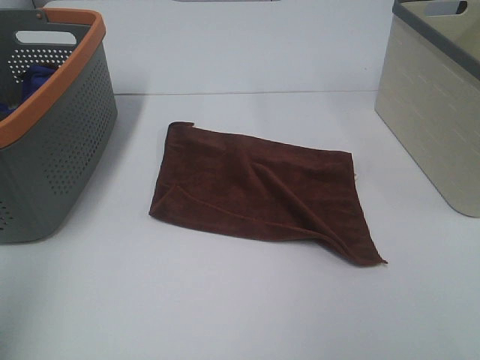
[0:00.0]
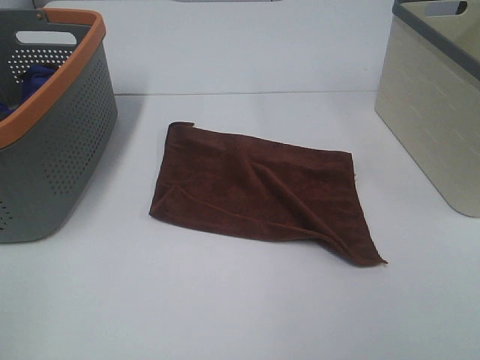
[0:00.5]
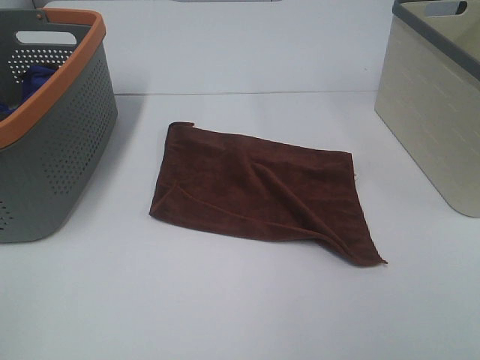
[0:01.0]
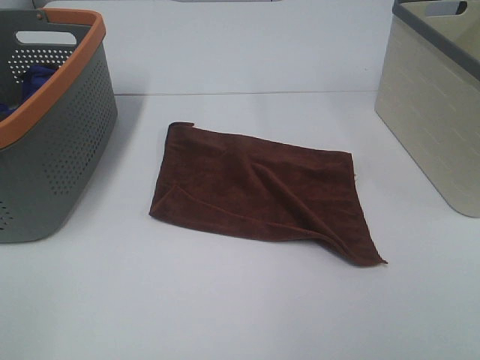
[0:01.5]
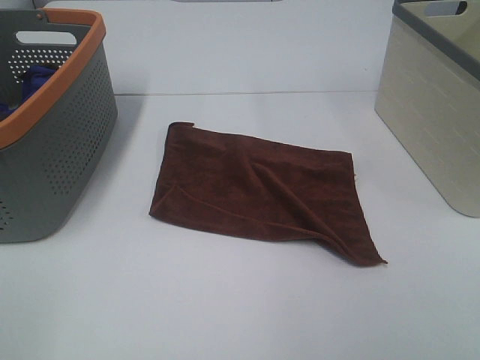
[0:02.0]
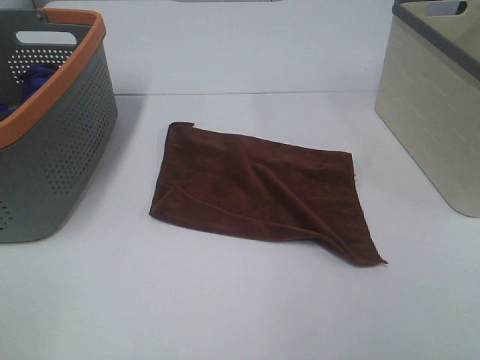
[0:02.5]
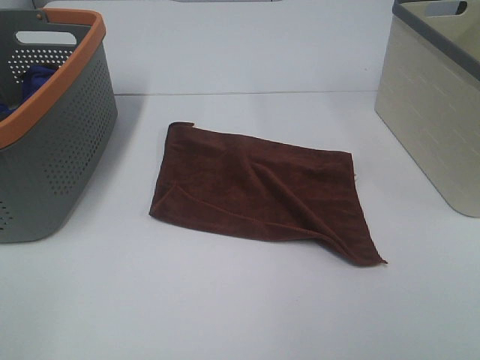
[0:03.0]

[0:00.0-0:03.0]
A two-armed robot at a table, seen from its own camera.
Task of the whole recording: Remove the towel and place it.
0:00.0 to 0:01.5: The left gripper moves downward and backward, about 15 cm.
0:01.5 to 0:03.0: Neither gripper changes place.

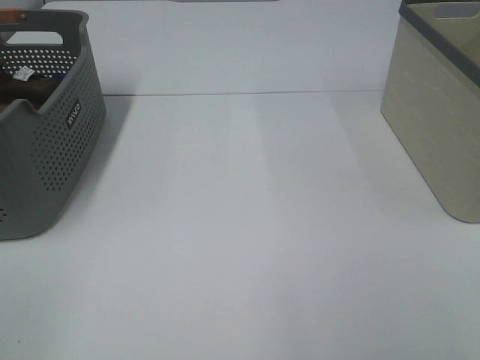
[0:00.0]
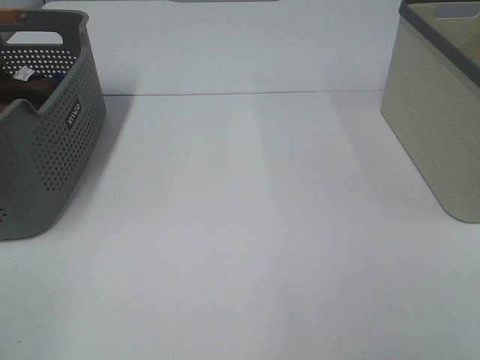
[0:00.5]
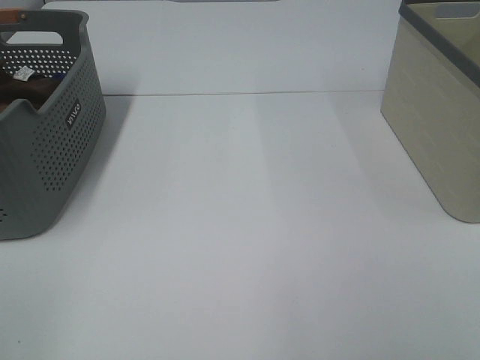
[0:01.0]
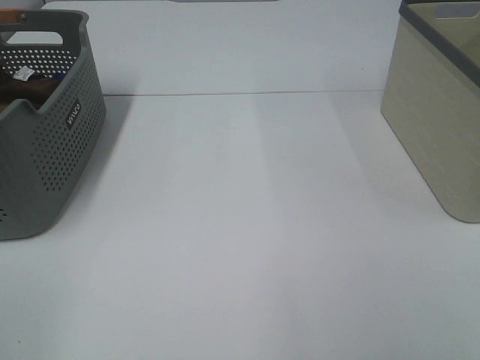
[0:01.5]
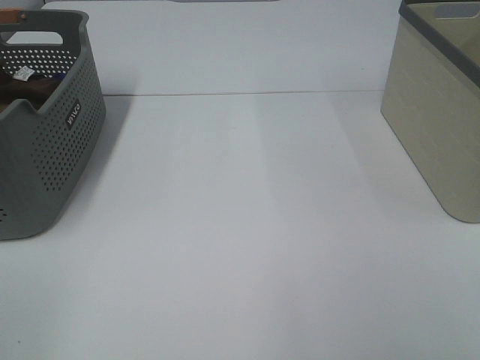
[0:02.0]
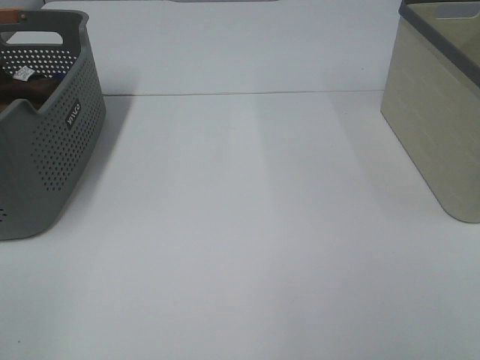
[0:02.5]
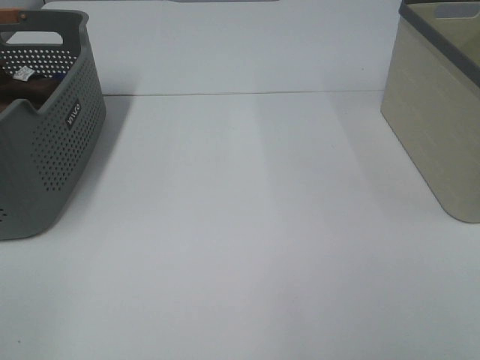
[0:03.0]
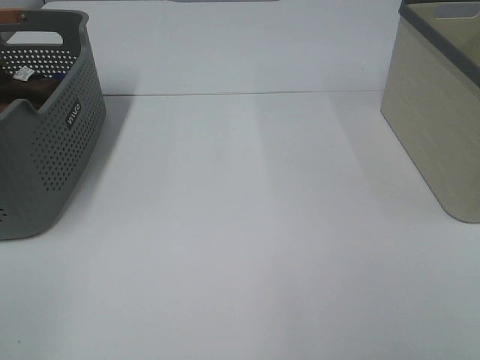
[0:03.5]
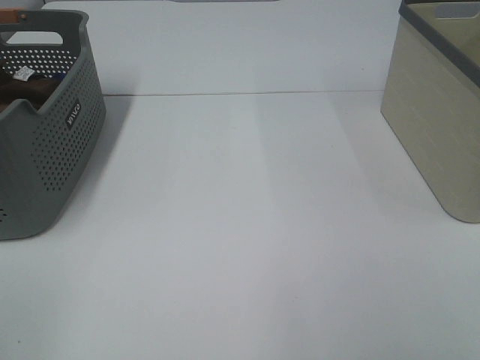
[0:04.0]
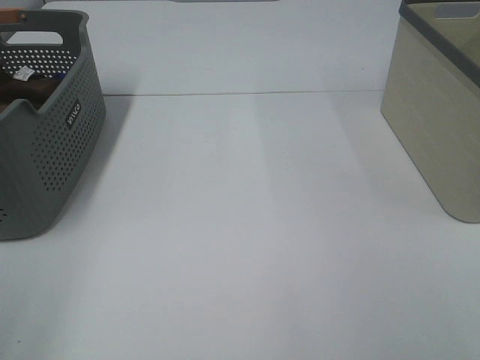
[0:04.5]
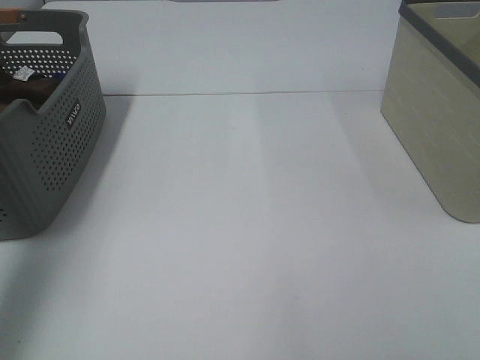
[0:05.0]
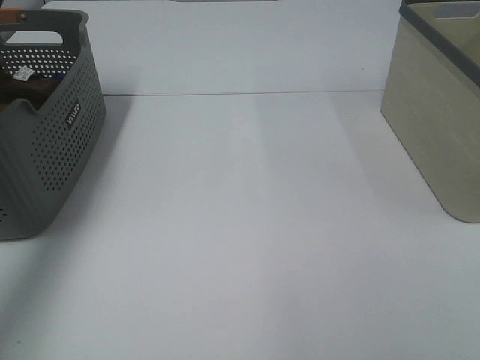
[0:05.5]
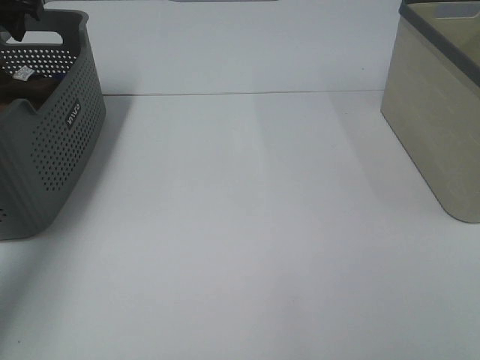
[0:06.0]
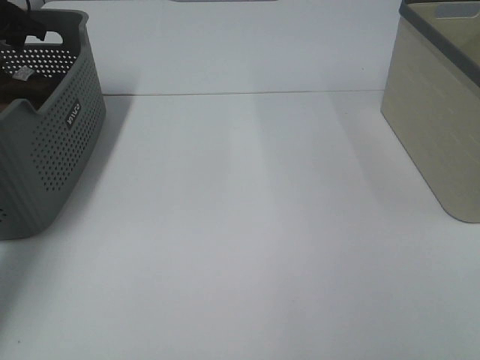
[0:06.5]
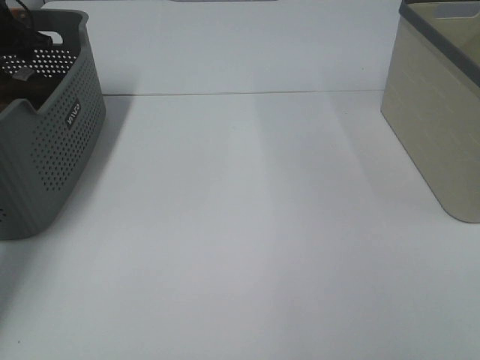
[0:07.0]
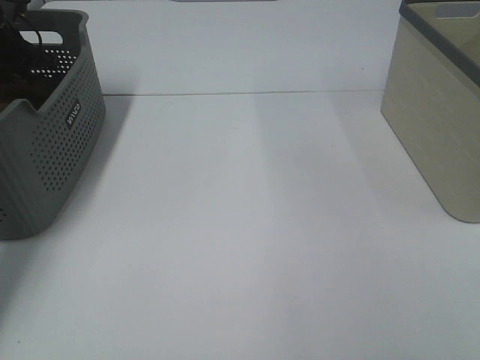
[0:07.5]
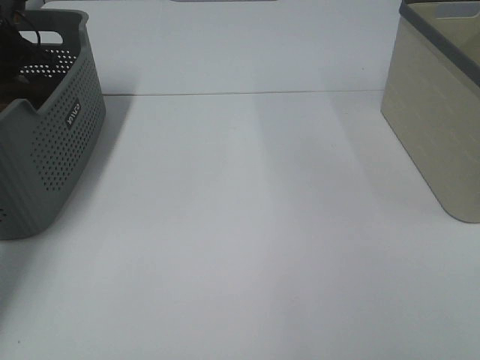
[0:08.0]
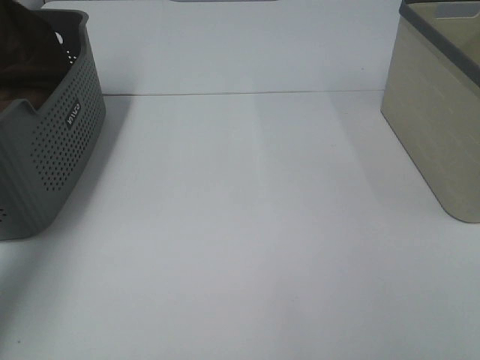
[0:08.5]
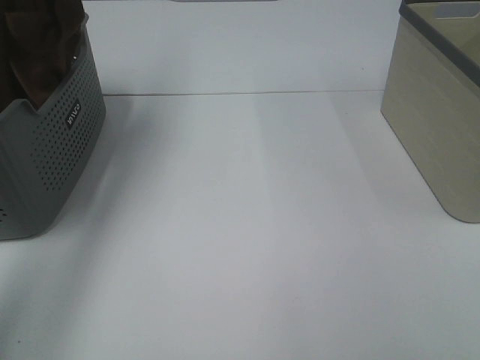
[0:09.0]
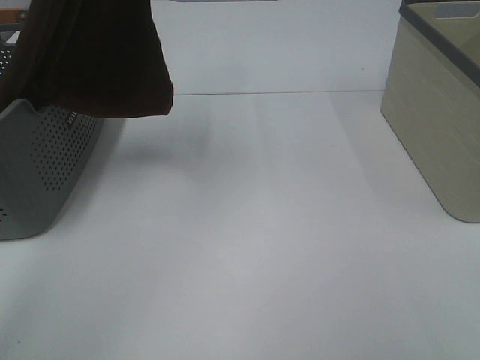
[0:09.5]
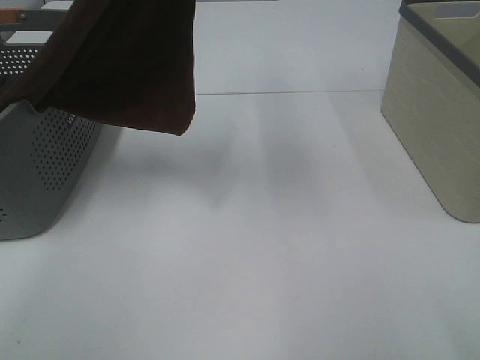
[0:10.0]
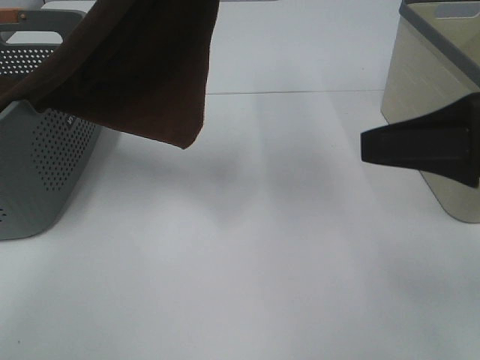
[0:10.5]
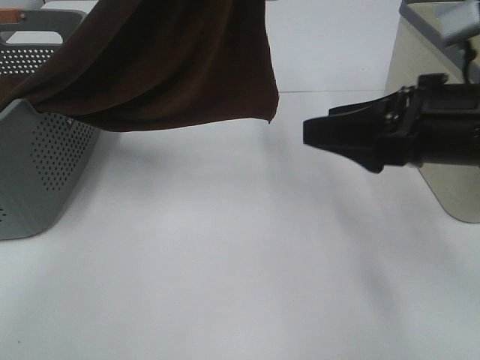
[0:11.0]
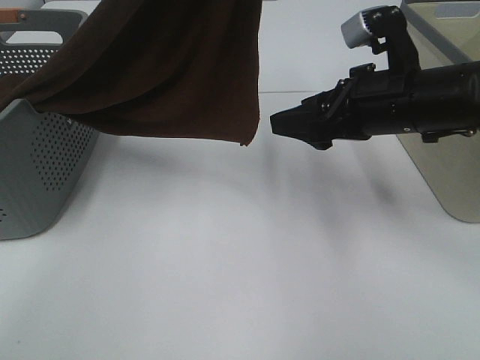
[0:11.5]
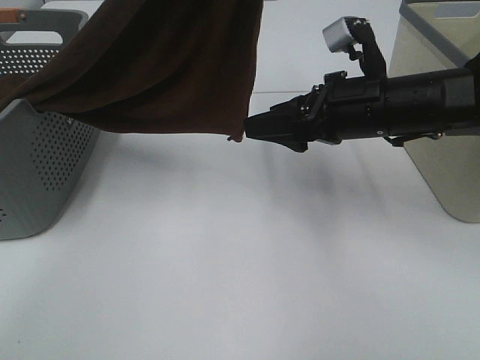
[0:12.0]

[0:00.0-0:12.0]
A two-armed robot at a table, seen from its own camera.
Task of the whole recording: Remove the towel and place it.
0:00.0 to 0:04.0: Both grippers stay about where they are.
0:04.0 to 0:06.0: The left gripper goes approximately 50 cm forward.
0:06.0 to 0:08.0: The left gripper goes roughly 10 cm downward and forward, and closes up.
0:08.0 to 0:10.0: The left gripper goes about 50 cm to the right, upward and backward. The right gripper moves forward, approximately 5 cm.
0:10.0 to 0:12.0: The right gripper moves forward, to the left and downward, roughly 30 cm.

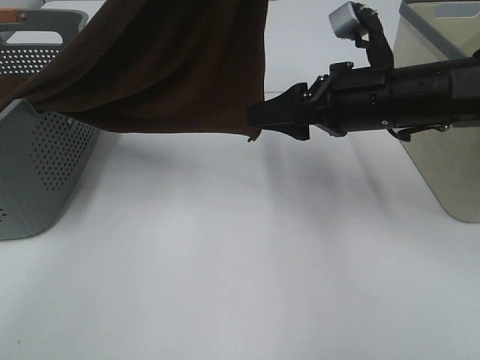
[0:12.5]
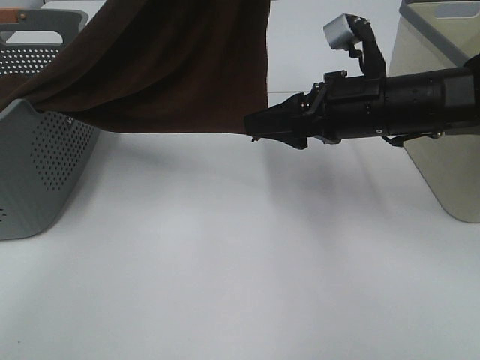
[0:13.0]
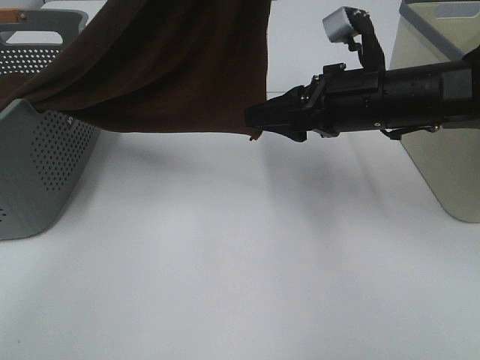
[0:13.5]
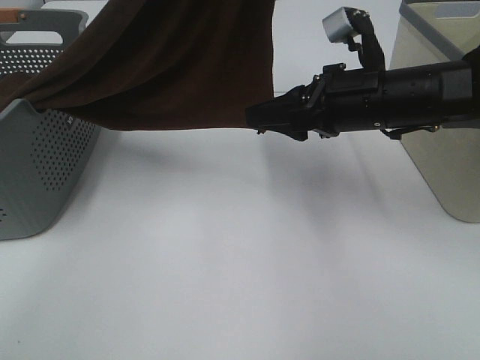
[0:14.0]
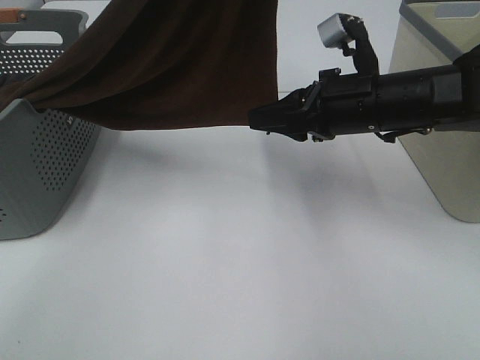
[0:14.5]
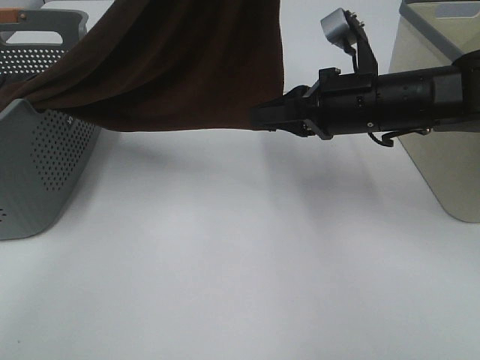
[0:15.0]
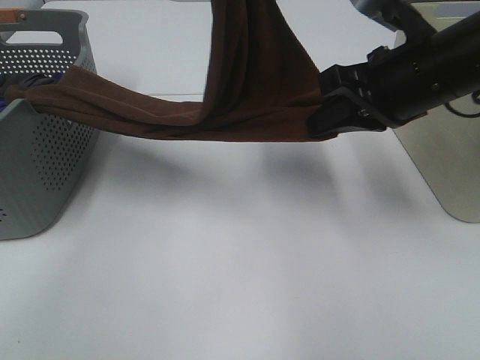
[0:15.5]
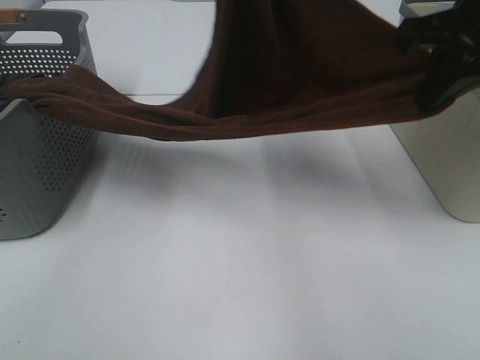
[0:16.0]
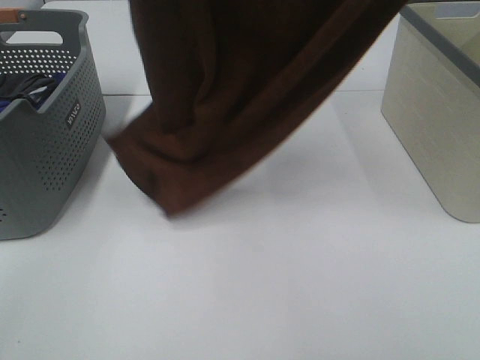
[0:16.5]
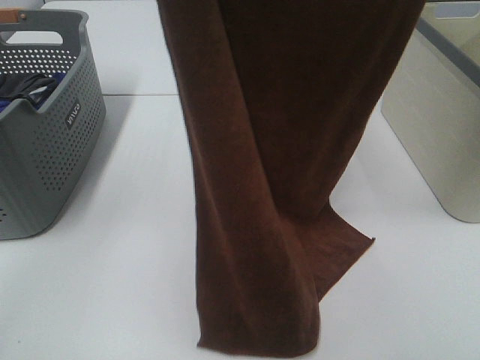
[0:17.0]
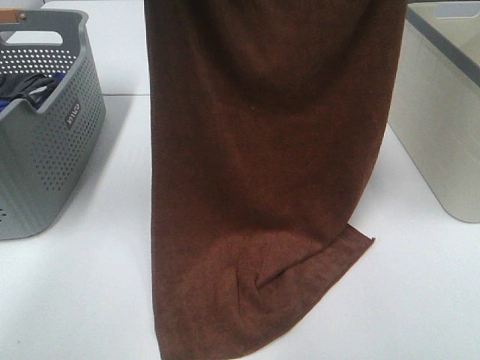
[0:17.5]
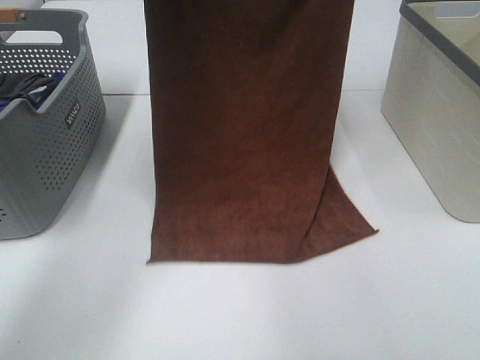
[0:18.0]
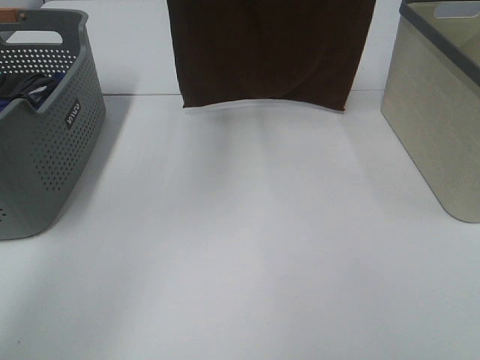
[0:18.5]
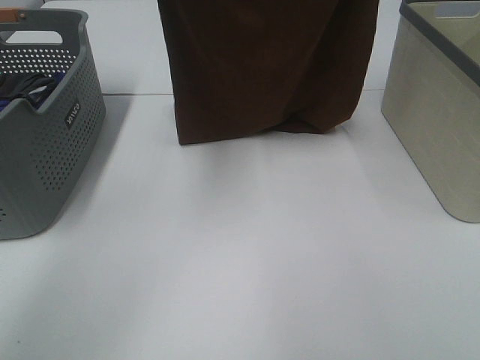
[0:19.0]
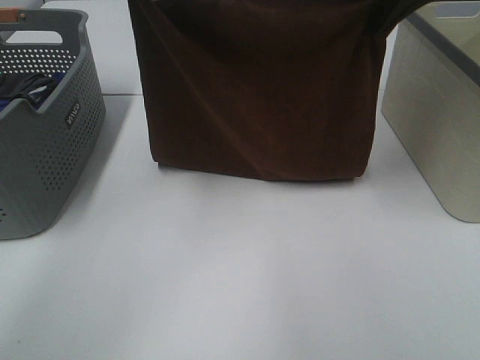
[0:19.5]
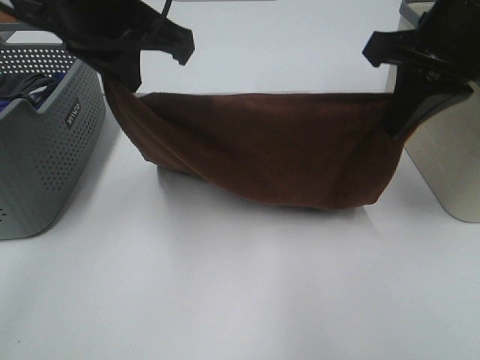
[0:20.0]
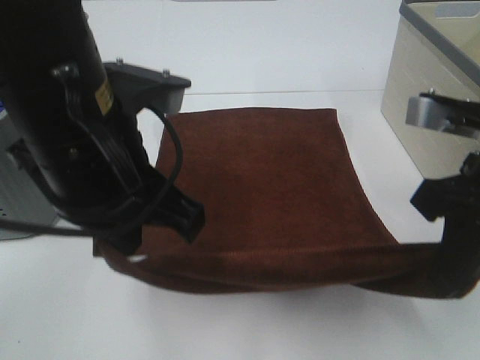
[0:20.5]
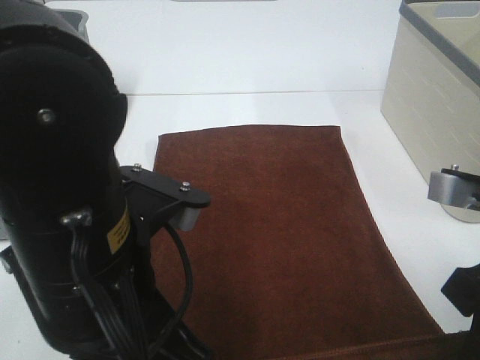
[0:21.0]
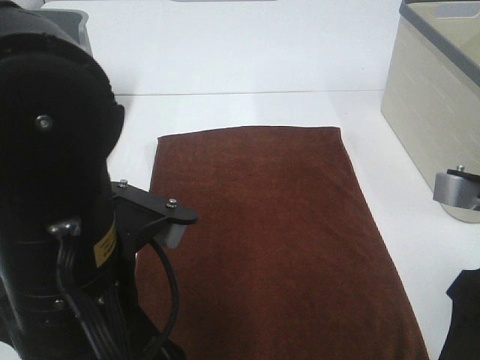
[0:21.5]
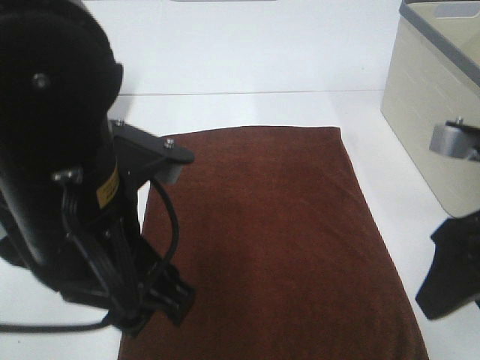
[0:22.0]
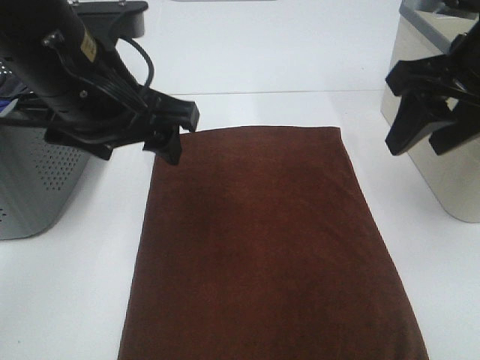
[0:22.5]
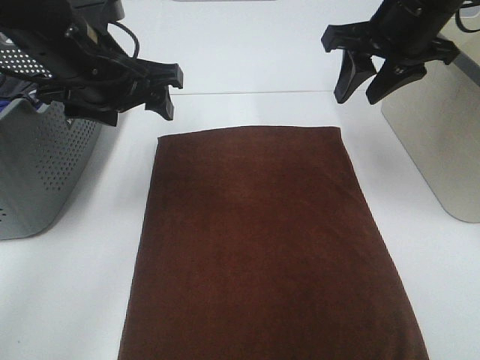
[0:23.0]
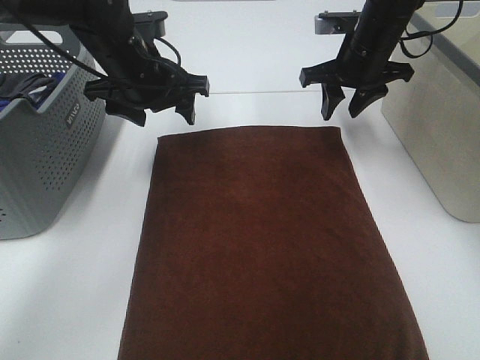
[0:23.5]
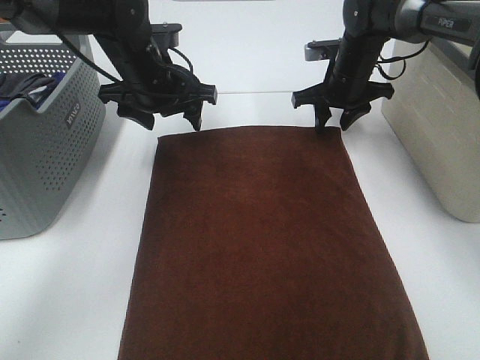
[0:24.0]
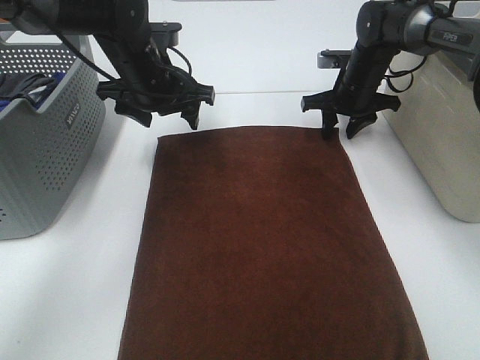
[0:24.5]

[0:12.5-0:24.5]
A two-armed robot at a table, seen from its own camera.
Task of the whole recording: Remove the towel and place it.
Step, 0:14.0 to 0:17.0: Left hand: spread the brown towel flat on the table.
Step, 0:14.0 to 0:17.0: Right hand: spread the brown towel flat on the table.
Step, 0:17.5 to 0:23.5: Left hand:adjust the brown towel.
Step, 0:17.5 to 0:23.5: Right hand:adjust the brown towel.
0:12.5 to 0:14.5: The right gripper closes up.
0:14.5 to 0:16.5: The left gripper shifts about 10 cm upward, to the left and backward, while the right gripper moves upward, about 35 cm, and closes up.
0:16.5 to 0:18.5: The two grippers go approximately 15 cm forward.
0:18.5 to 0:20.5: Both grippers travel together downward and backward, roughly 35 cm.
0:20.5 to 0:22.5: The right gripper moves forward and upward, some 10 cm, and opens up. The left gripper shifts approximately 5 cm forward, and opens up.
0:22.5 to 0:24.5: The right gripper travels forward and downward by some 30 cm. Meanwhile the left gripper moves forward and downward, some 20 cm.
